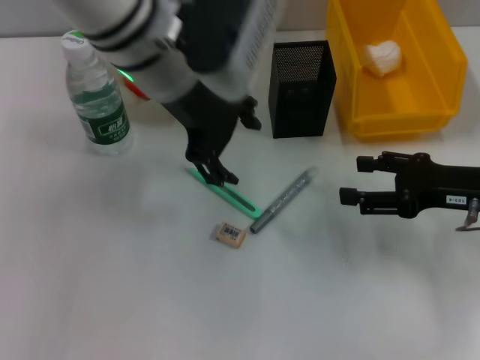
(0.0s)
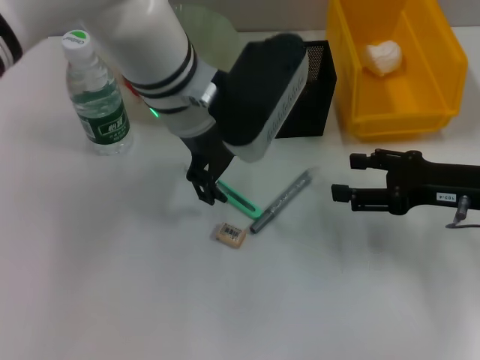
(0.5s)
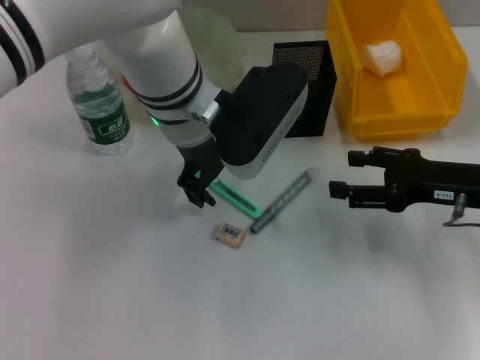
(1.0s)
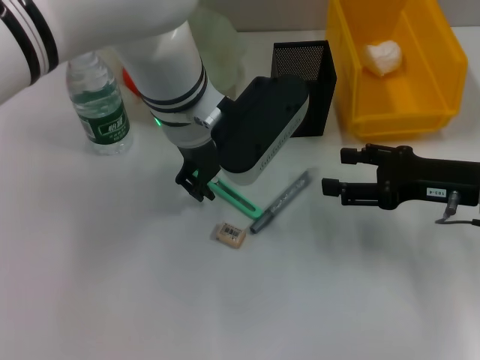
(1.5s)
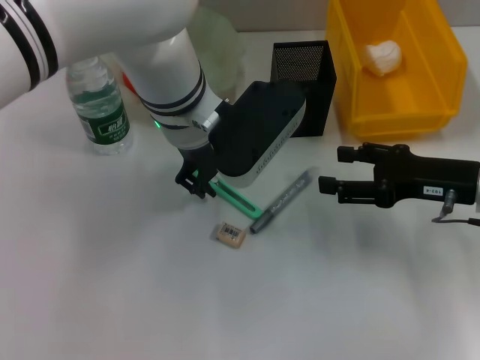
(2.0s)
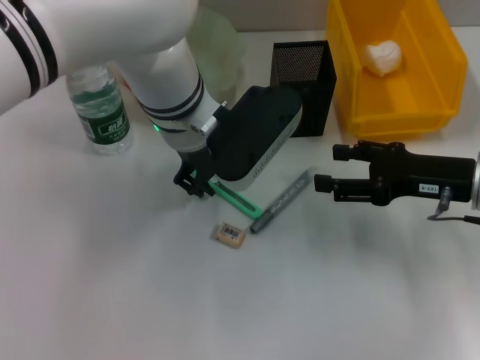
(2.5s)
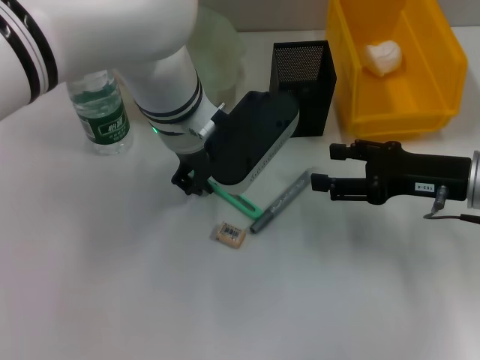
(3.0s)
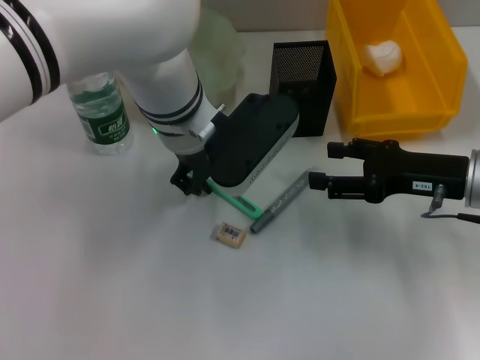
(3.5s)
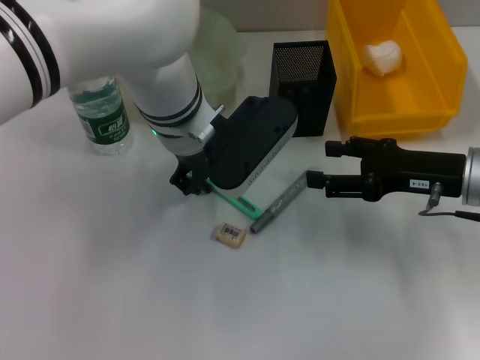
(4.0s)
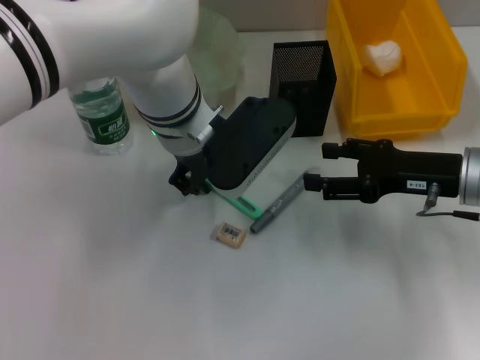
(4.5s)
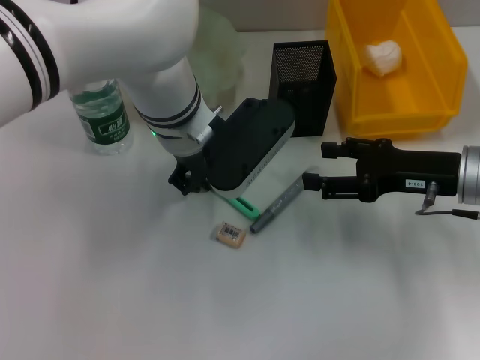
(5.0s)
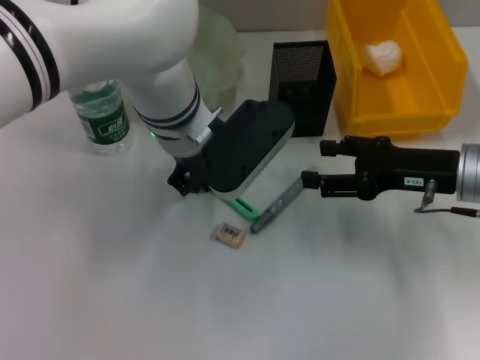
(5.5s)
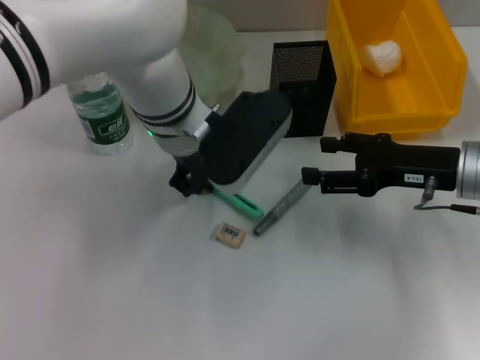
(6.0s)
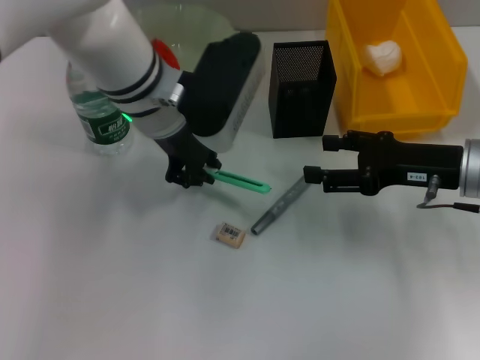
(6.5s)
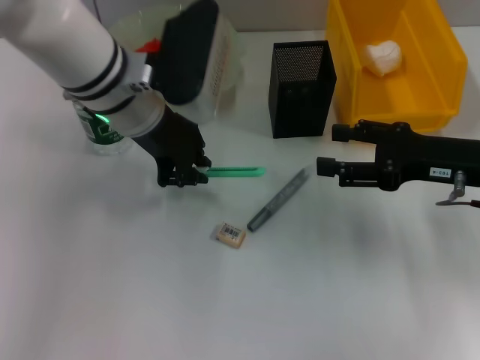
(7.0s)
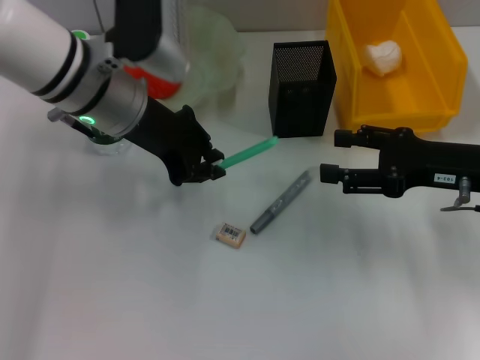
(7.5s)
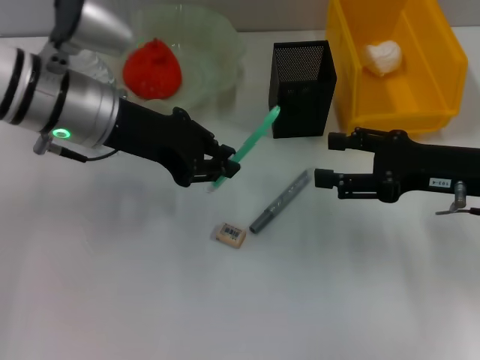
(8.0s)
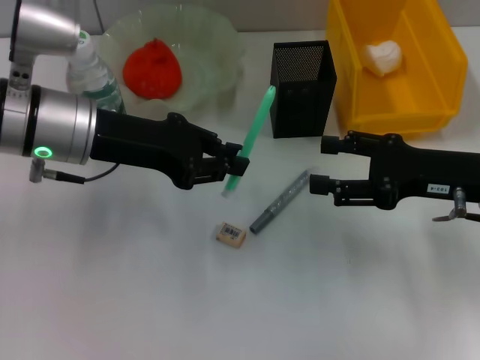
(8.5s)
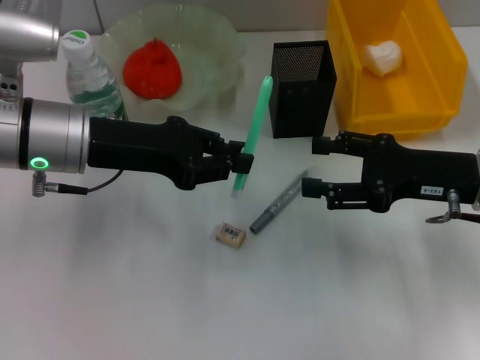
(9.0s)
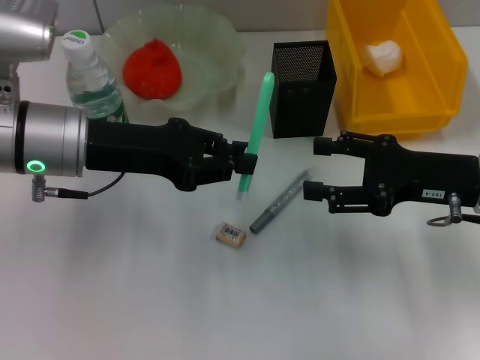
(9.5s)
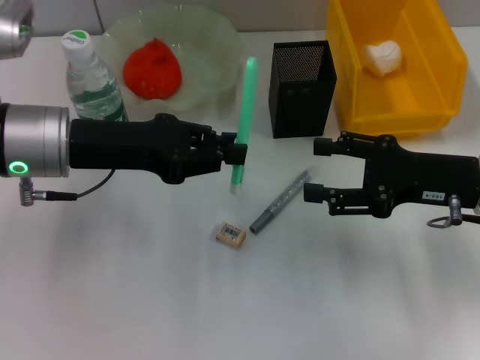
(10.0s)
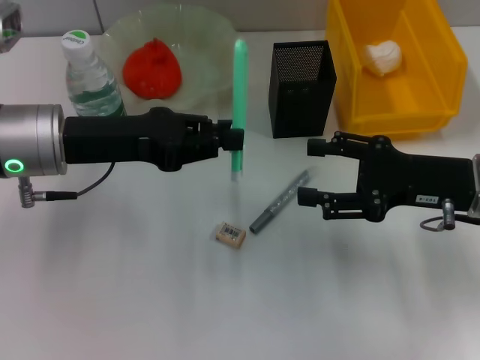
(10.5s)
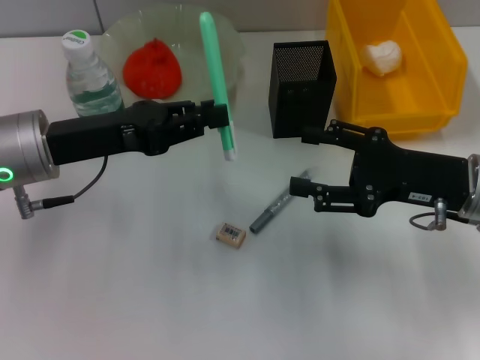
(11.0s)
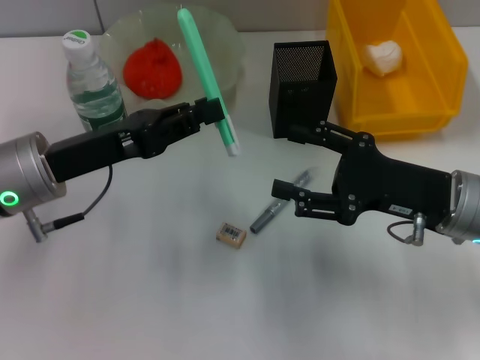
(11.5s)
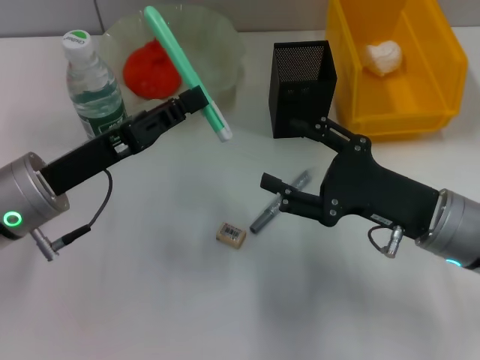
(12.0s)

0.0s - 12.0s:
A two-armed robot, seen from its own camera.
Step, 0.0s - 5.5s: Grab the blue utility knife with the left hand.
0.0s - 2.0s: The left gripper shifts about 5 cm downward, and closes its fingers.
2.0s - 4.0s: The grippers make only small movements.
4.0s - 6.0s: The two grippers keep their place.
6.0s - 8.0s: The left gripper moves to the left, approximately 10 cm.
8.0s - 10.0s: The left gripper shifts by about 5 cm.
10.0s - 12.0s: The left gripper shifts approximately 5 cm downward; the right gripper shifts by approximately 5 cm.

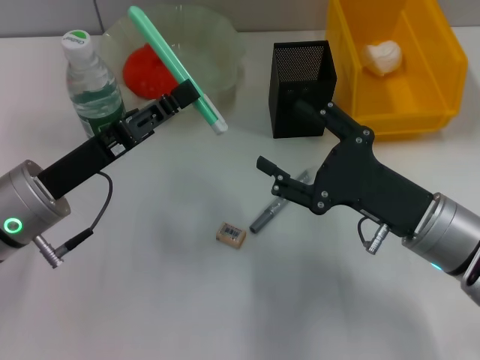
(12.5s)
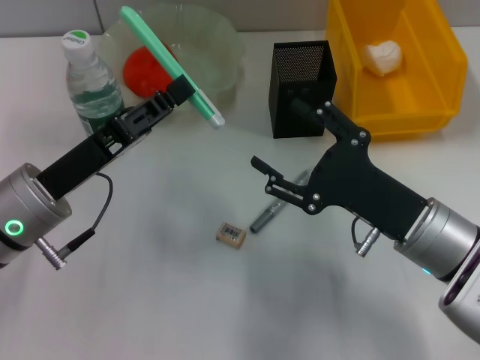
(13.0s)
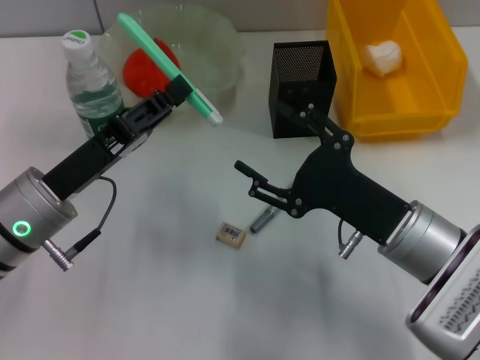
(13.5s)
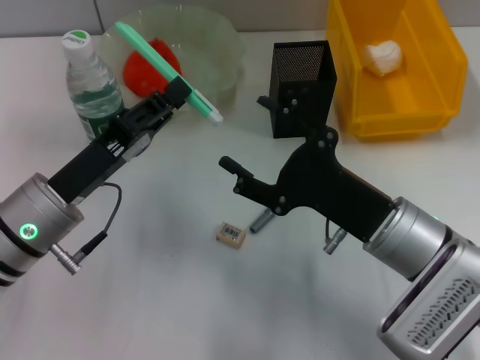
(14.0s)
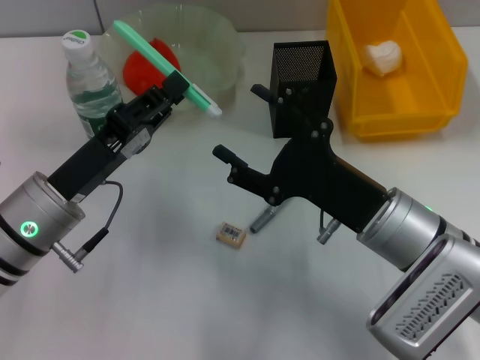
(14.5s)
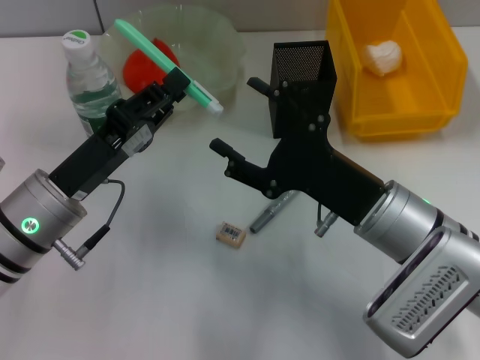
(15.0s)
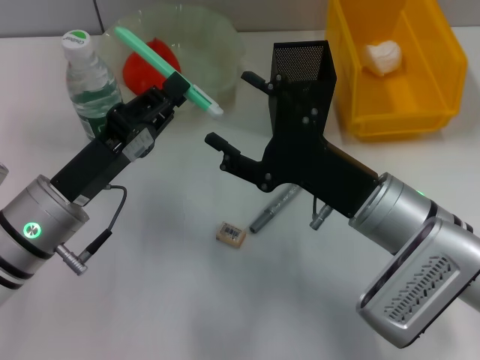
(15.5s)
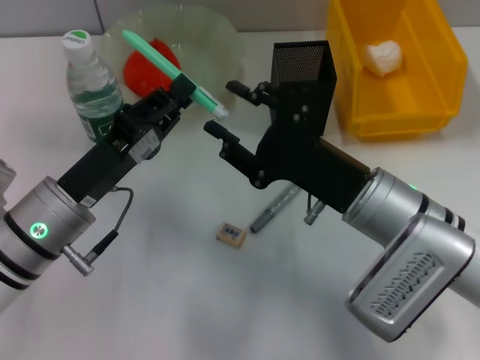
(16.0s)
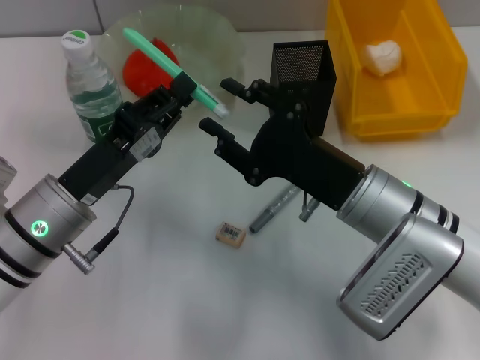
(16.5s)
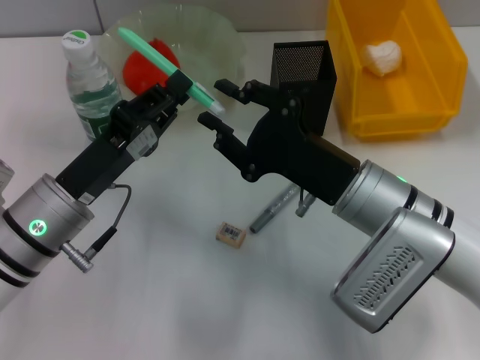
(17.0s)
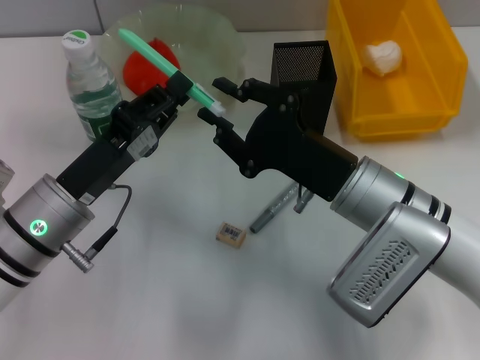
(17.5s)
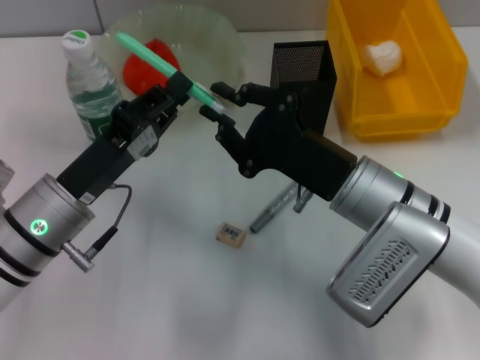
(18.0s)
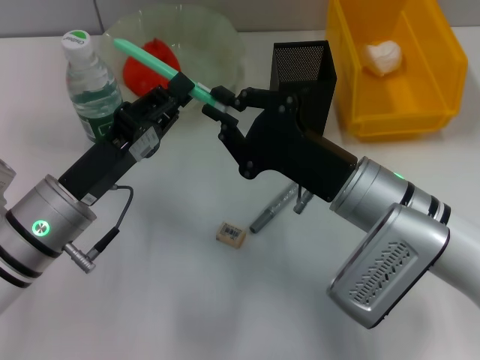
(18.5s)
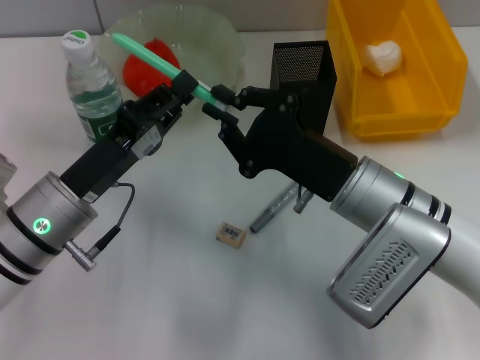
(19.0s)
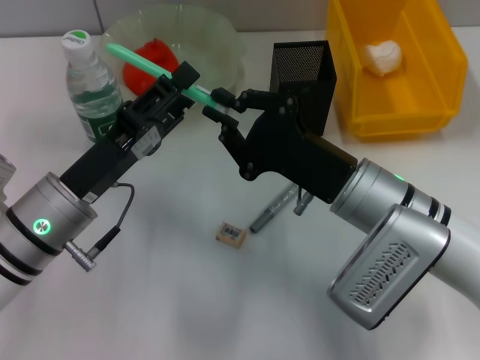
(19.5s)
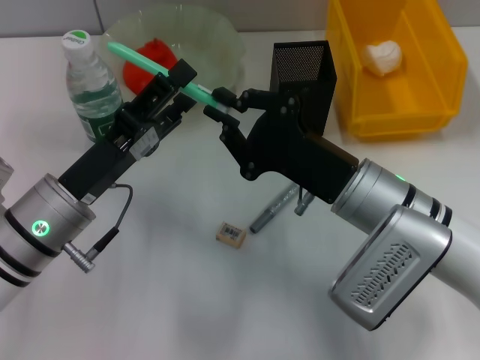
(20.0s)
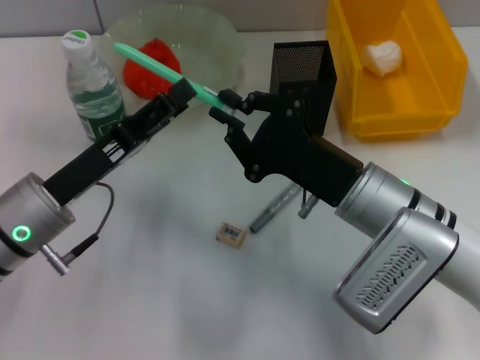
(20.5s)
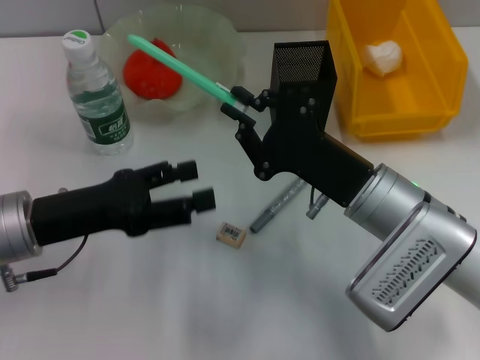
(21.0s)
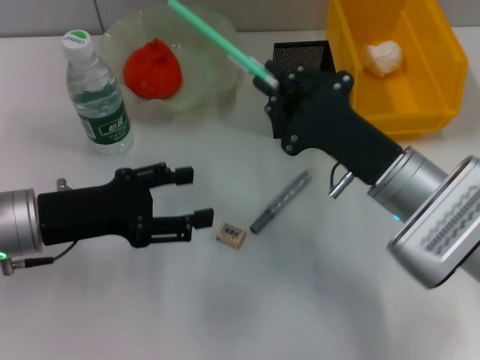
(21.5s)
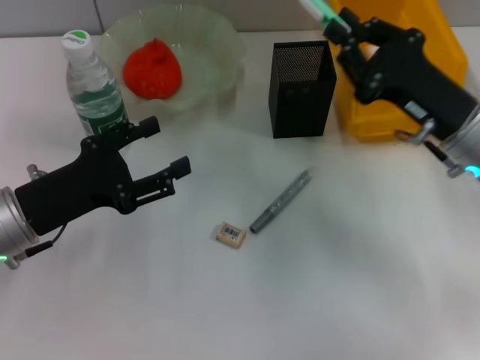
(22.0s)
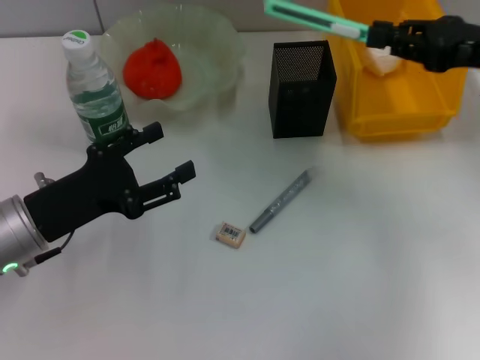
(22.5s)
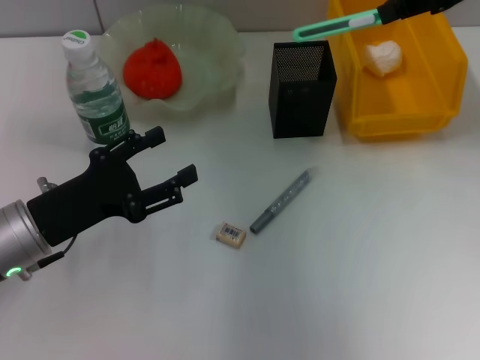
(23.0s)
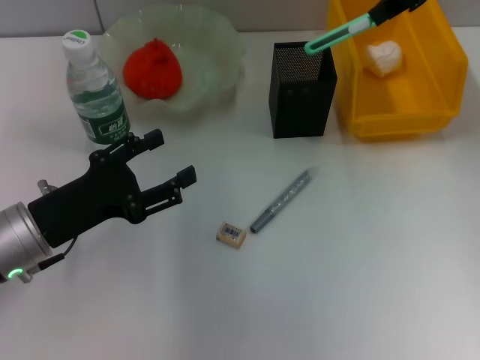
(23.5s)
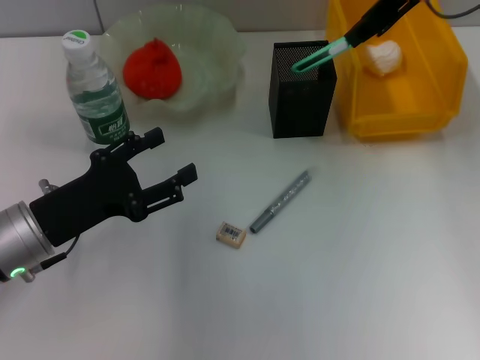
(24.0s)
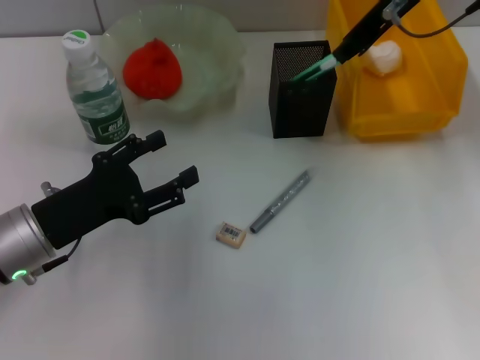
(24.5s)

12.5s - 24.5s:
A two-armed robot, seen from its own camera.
Step, 12.5s - 20.0s: Pass the blue utility knife from the left hand to the right hand.
14.5s - 16.5s: The right gripper closes.
16.5s - 18.5s: The right gripper closes.
18.5s - 20.5s: The left gripper opens.
20.5s - 22.5s: The right gripper moves to the right, upward and forward, about 20 cm.
22.5s - 24.5s: The right gripper shifts approximately 15 cm to the left, forward and upward.

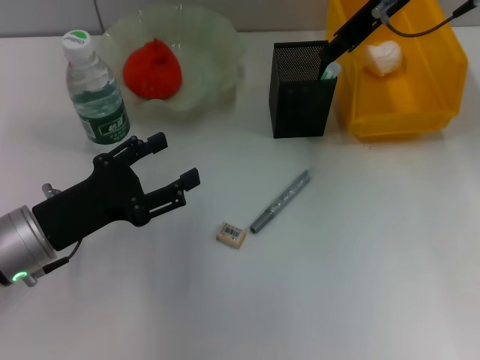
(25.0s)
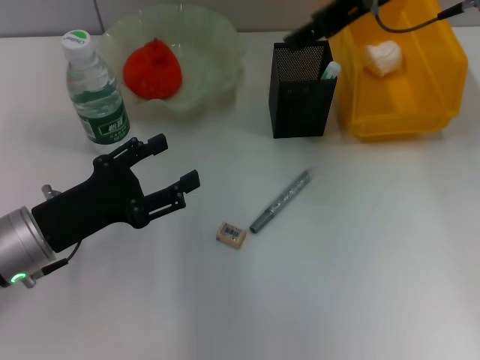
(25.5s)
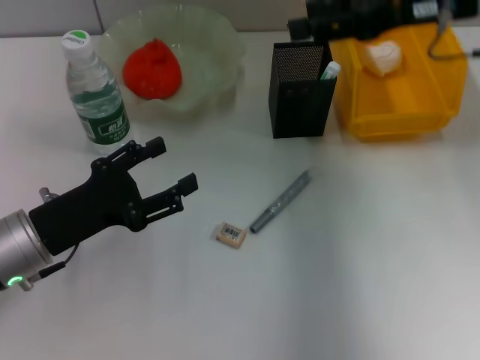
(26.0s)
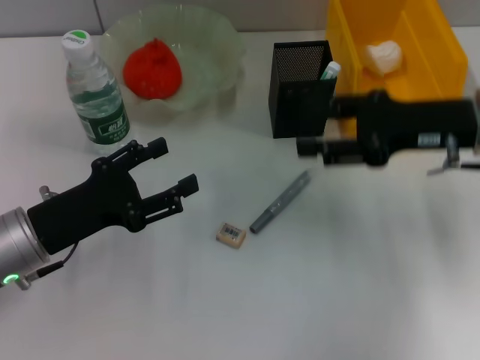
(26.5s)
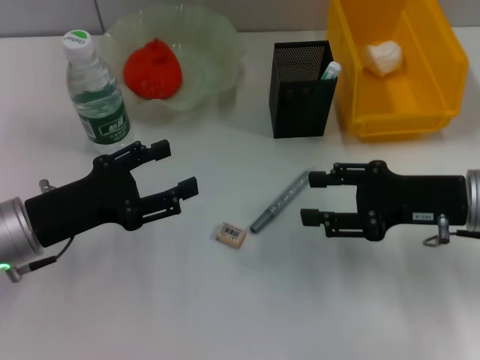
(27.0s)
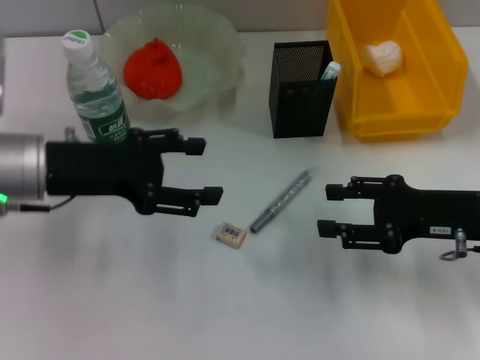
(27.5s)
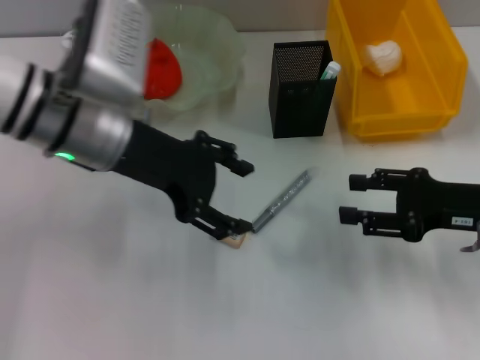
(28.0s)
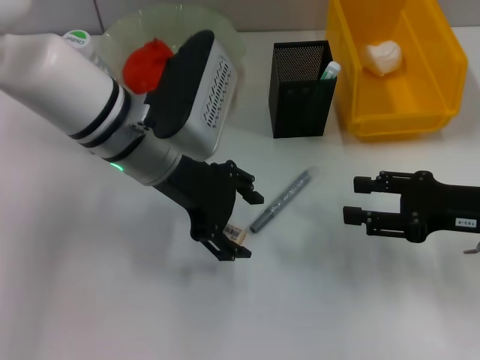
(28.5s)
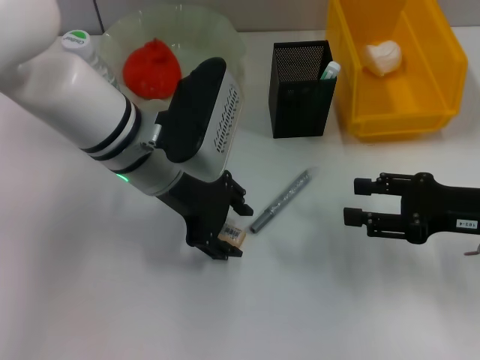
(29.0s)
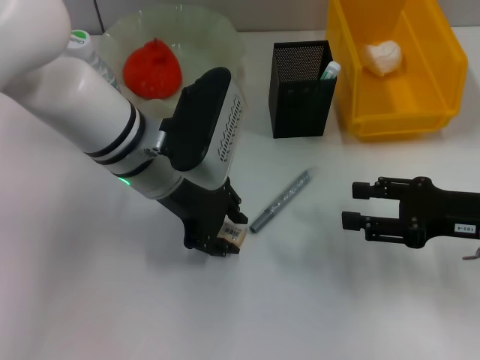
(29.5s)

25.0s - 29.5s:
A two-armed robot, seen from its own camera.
25.0s - 27.0s: The right gripper travels downward, backward and to the right by about 25 cm, and opens up.
27.0s - 29.5s: The left gripper is displaced to the right, forward and upward by about 20 cm, and closes up.
